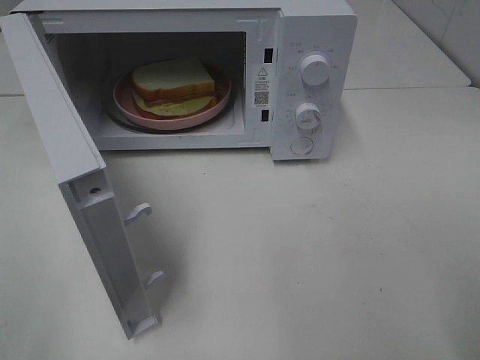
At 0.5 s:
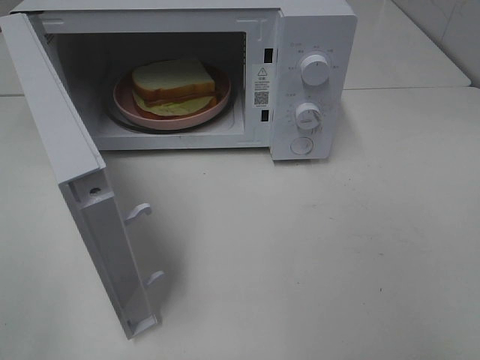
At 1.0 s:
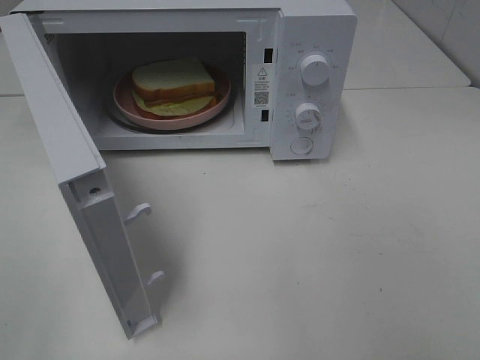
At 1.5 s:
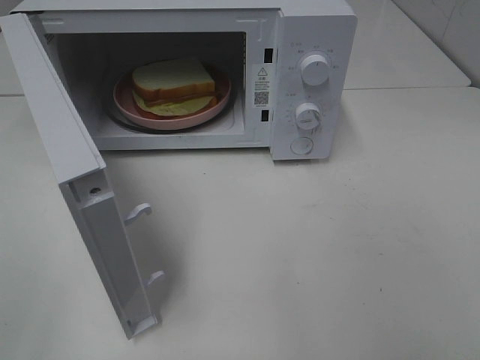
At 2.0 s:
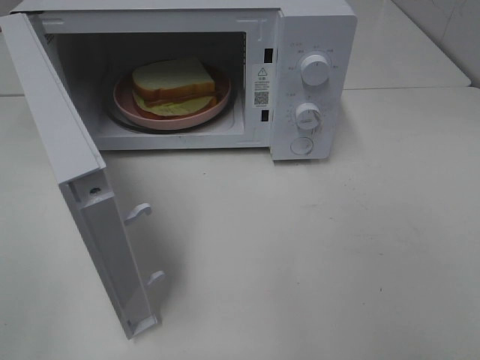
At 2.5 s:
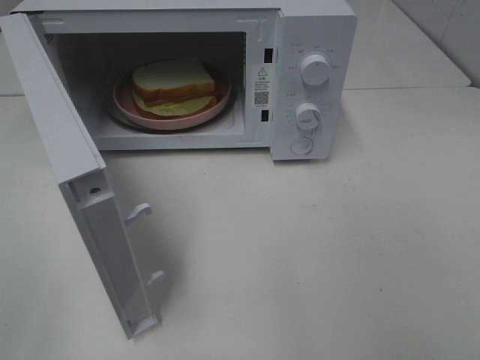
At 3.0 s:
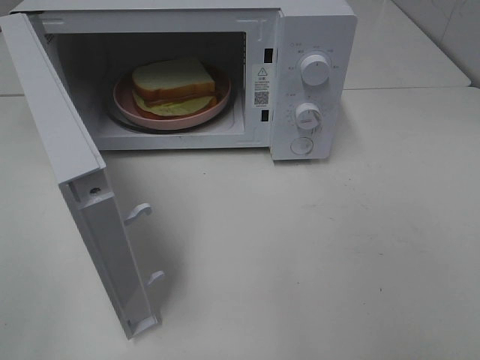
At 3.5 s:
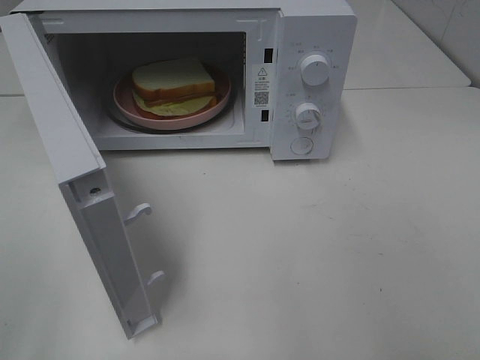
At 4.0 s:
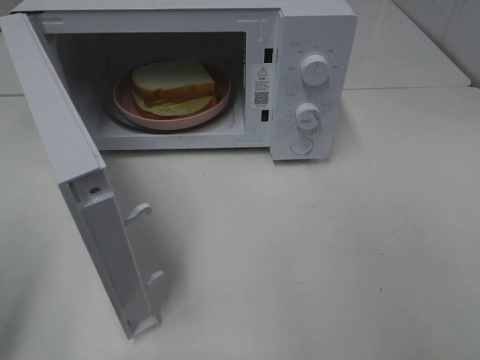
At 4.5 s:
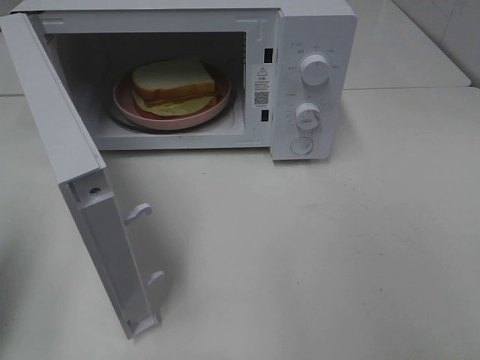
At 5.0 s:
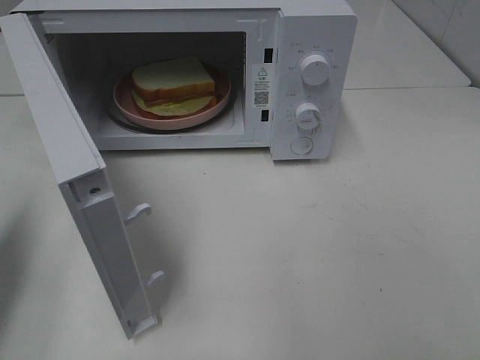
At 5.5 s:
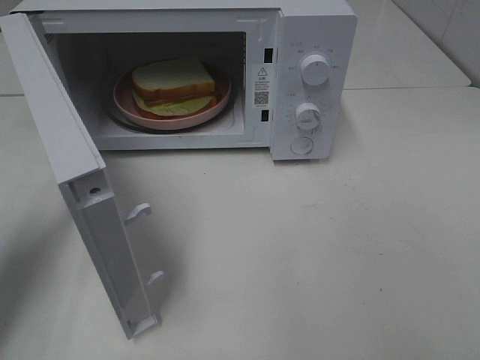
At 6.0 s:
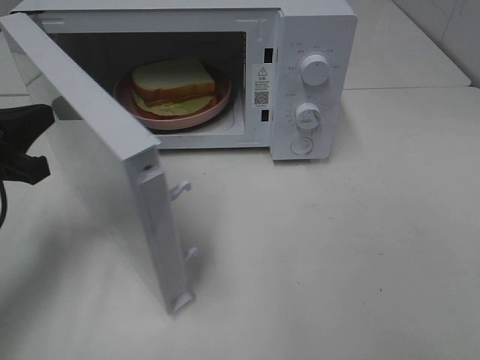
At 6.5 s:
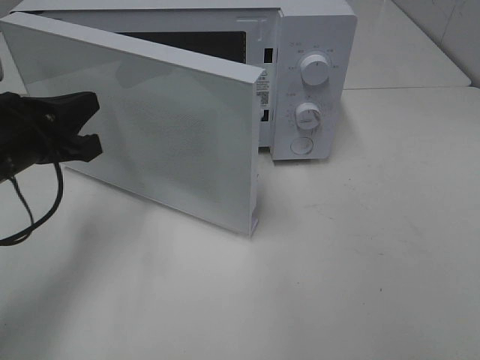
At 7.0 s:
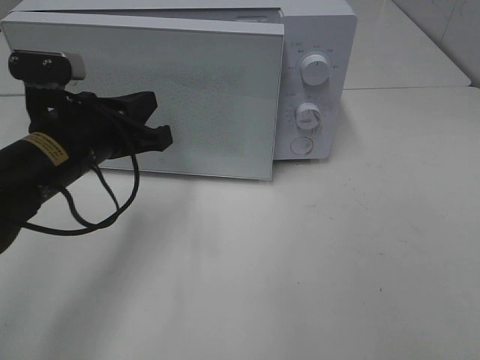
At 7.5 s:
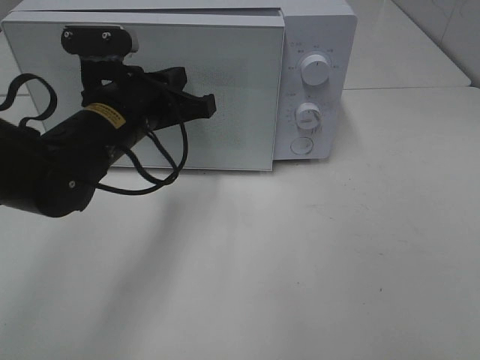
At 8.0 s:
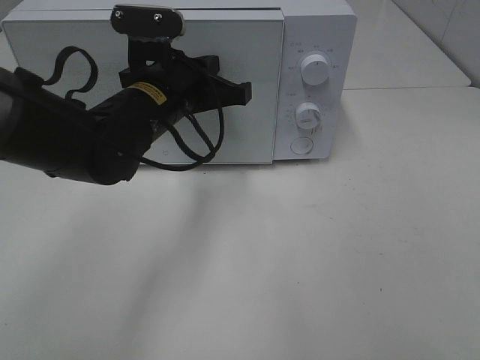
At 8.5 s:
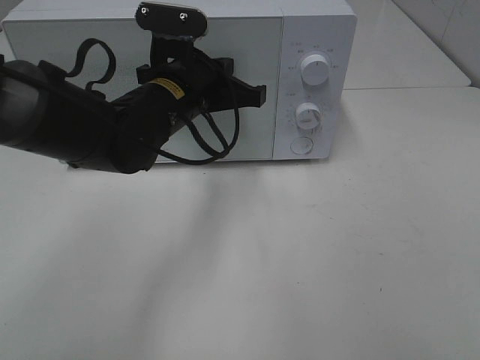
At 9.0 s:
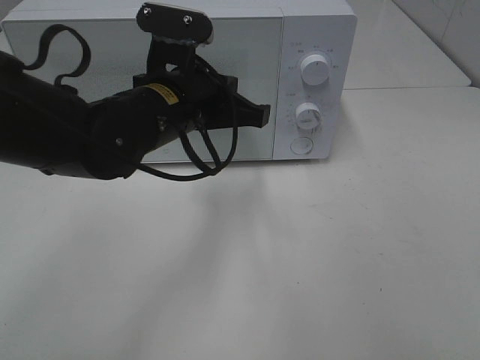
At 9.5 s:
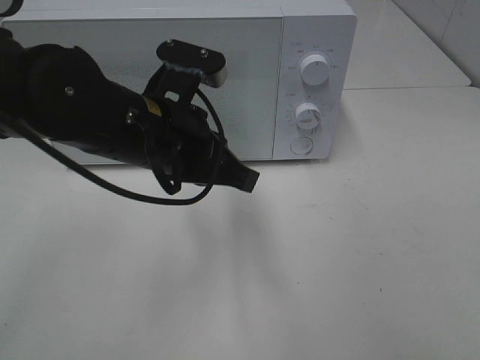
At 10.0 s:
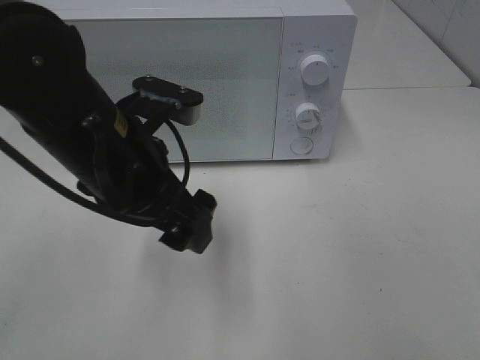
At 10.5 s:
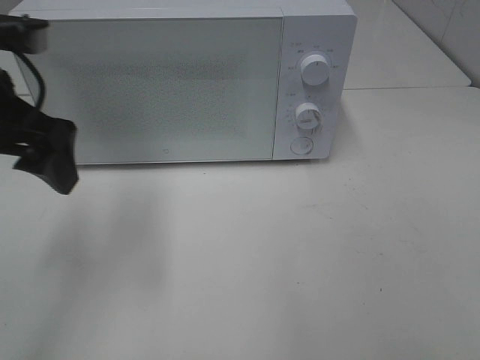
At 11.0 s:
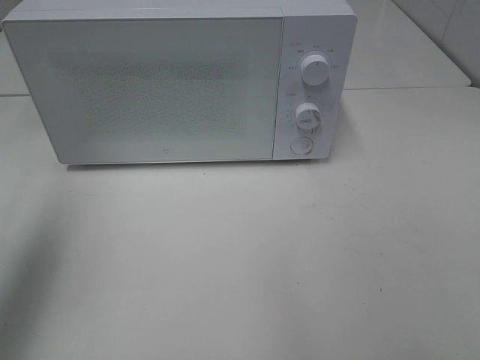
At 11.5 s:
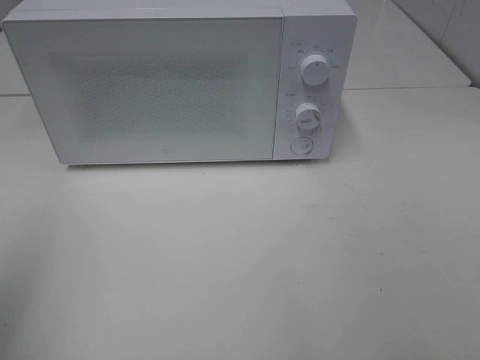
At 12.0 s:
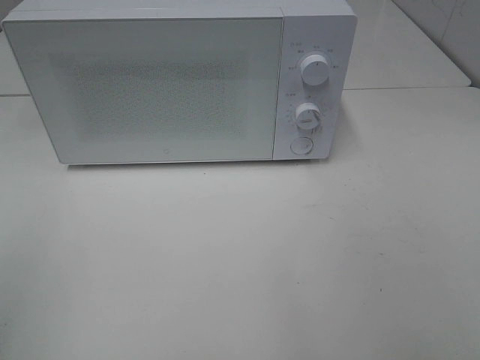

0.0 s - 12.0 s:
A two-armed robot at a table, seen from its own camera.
Task of the whole recording: Heat Sandwich.
Step, 0.0 s - 9.5 s: Left hand: close the microwave door.
4.0 s - 6.0 s: The left gripper is displaced forward and downward by approximately 20 cm.
6.0 s - 8.0 s: The left gripper is displaced to the right and forward by approximately 20 cm.
8.0 s - 10.0 s: The left gripper is displaced backward by some 10 cm, and opens up.
10.0 s - 12.0 s: The left gripper is displaced to the left, backward and upward by roughly 30 cm.

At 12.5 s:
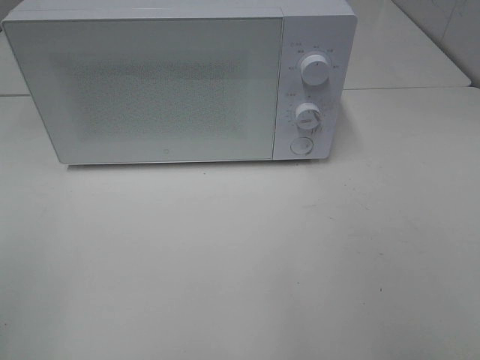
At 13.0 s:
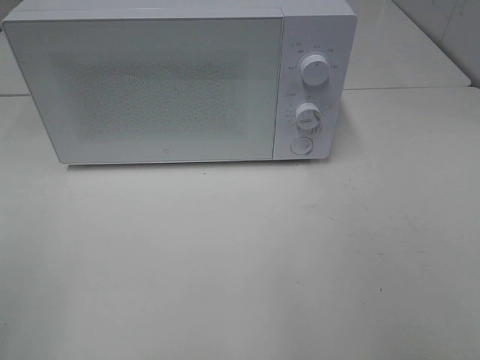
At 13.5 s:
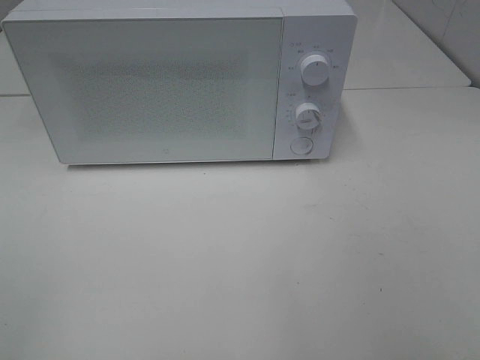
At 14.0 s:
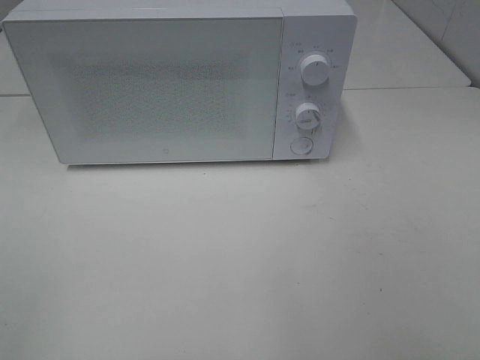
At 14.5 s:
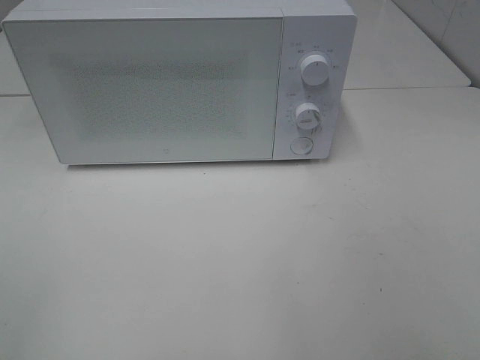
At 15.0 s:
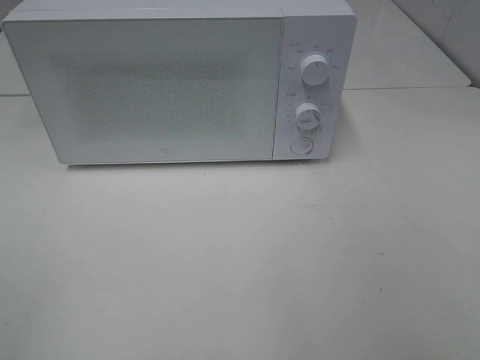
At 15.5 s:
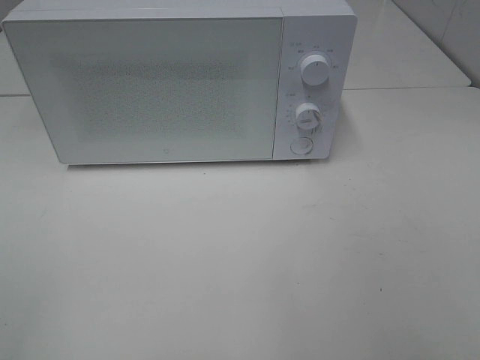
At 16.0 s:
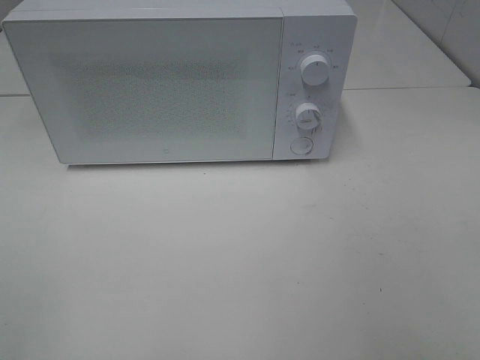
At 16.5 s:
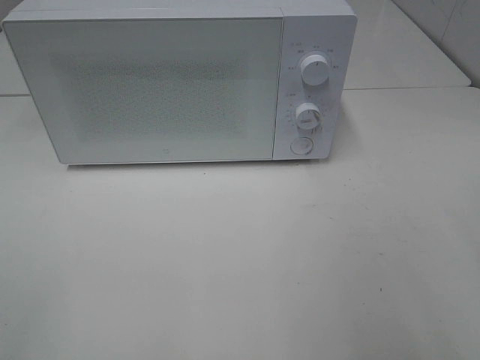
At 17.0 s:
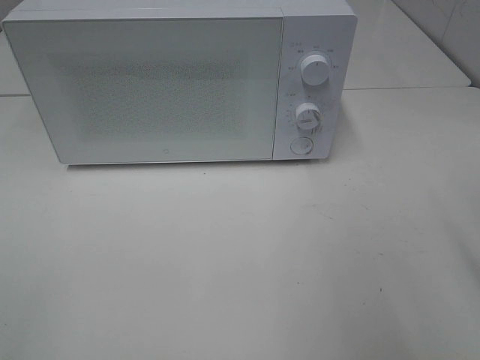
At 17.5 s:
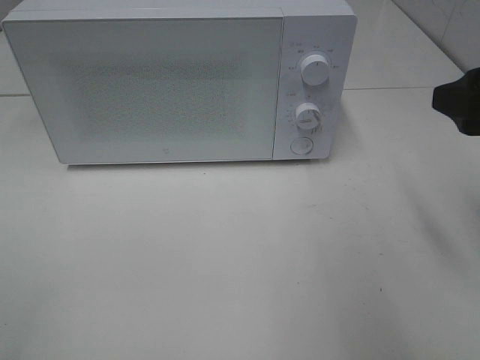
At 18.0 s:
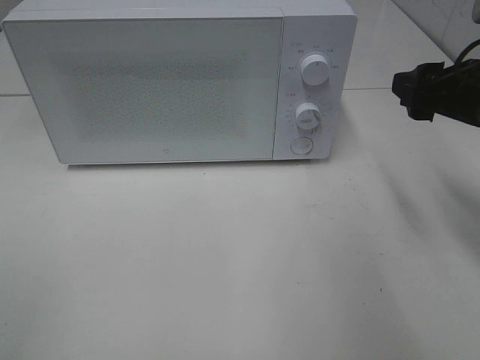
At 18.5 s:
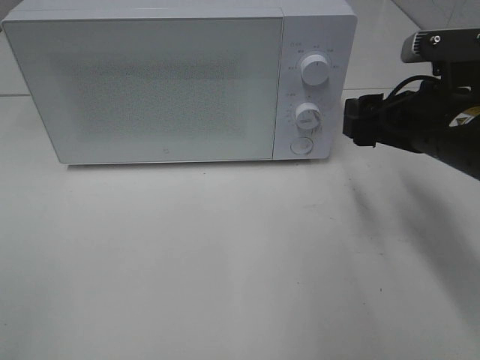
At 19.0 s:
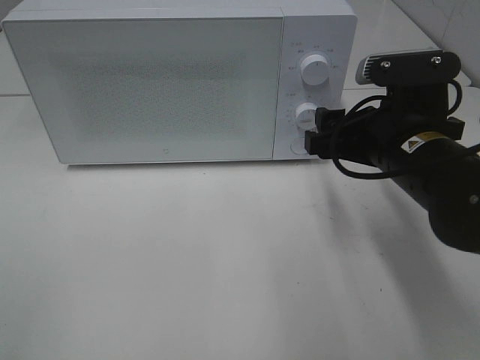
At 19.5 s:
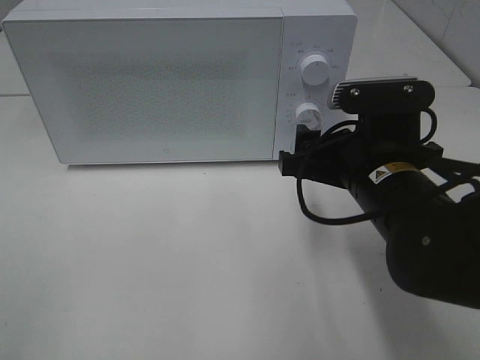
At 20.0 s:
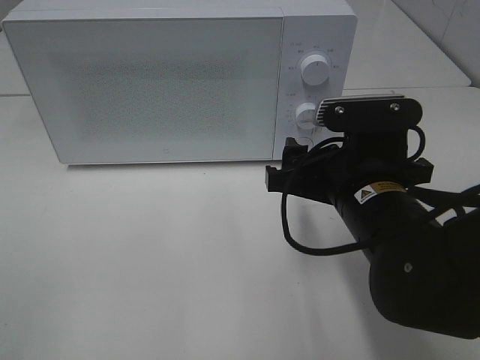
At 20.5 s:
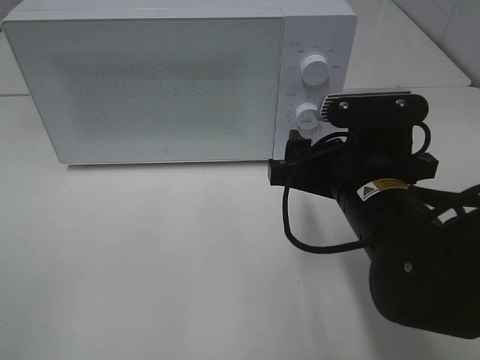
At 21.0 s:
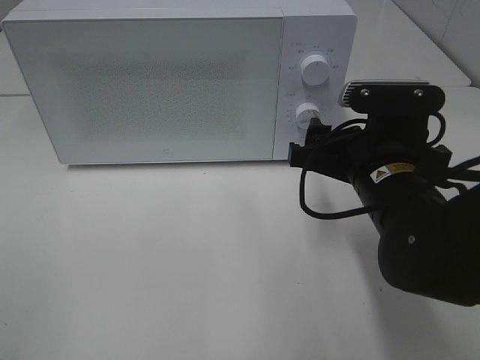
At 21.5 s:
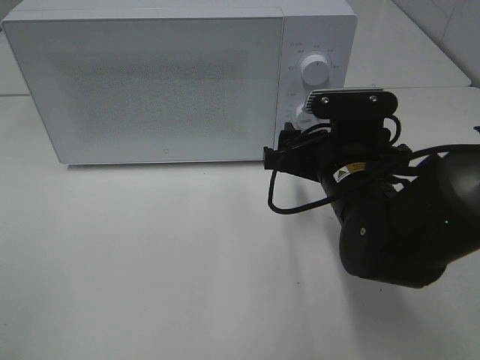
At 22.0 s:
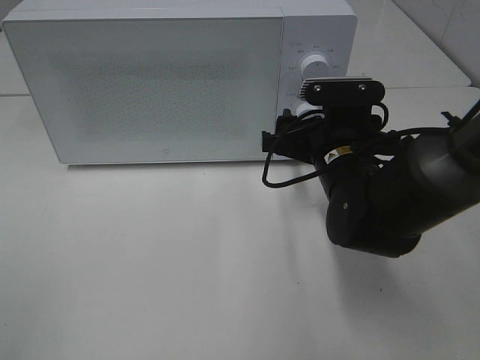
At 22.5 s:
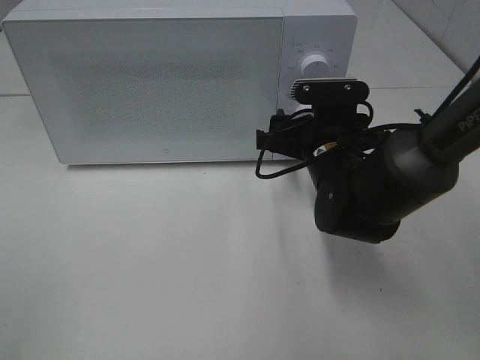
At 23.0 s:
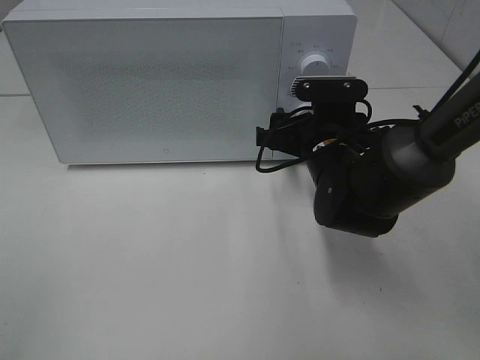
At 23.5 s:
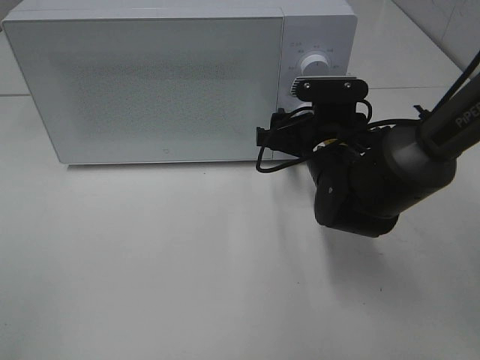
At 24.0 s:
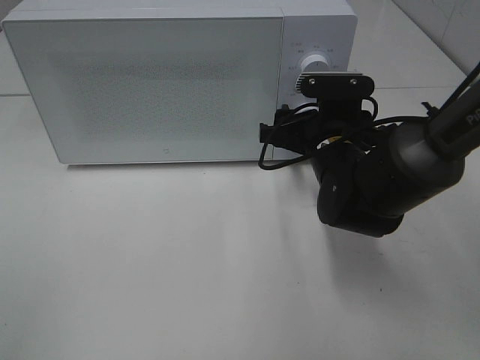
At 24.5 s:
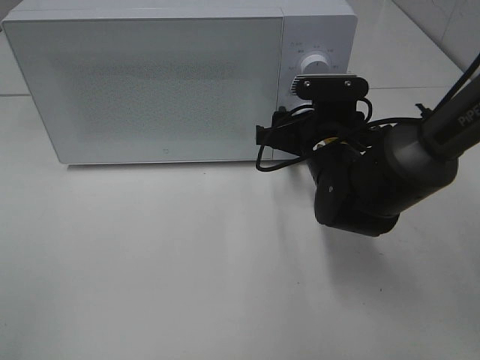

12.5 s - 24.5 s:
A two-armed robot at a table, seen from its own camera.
Task of the whole recording: Heat Sandwich.
16.5 s - 18.5 s: The right gripper heads forward, downward and to the left, covering approximately 20 cm.
18.5 s - 20.5 s: The right gripper heads to the left, covering some 10 cm.
20.5 s - 22.5 s: The right gripper goes approximately 10 cm forward.
22.5 s - 24.5 s: Both grippers stay about where they are.

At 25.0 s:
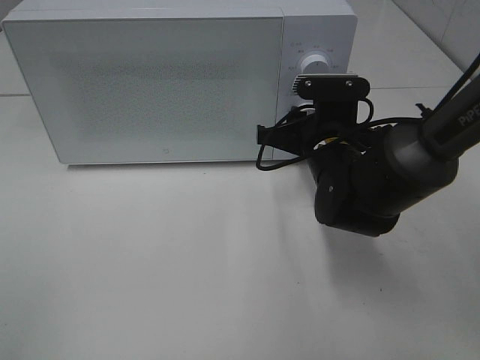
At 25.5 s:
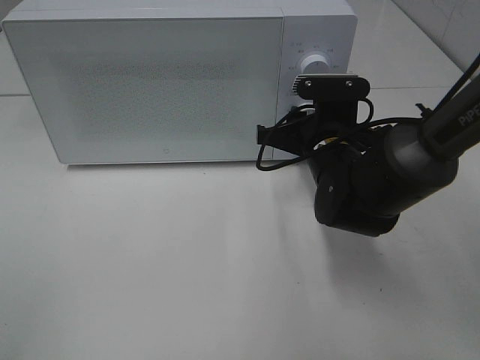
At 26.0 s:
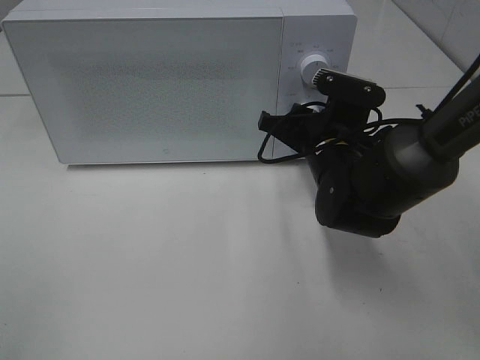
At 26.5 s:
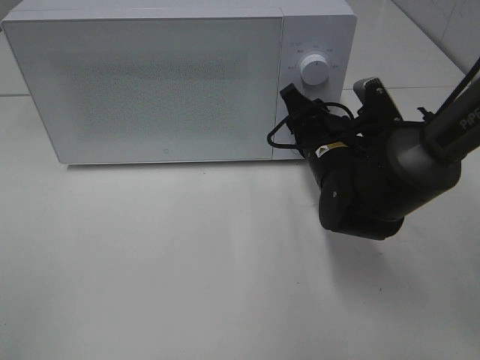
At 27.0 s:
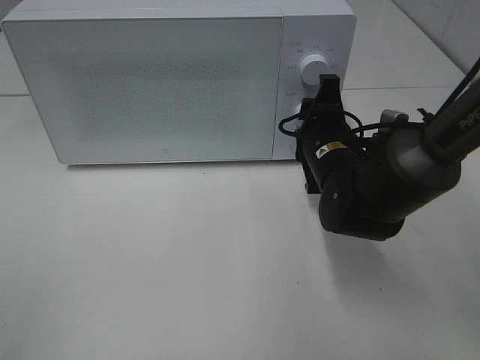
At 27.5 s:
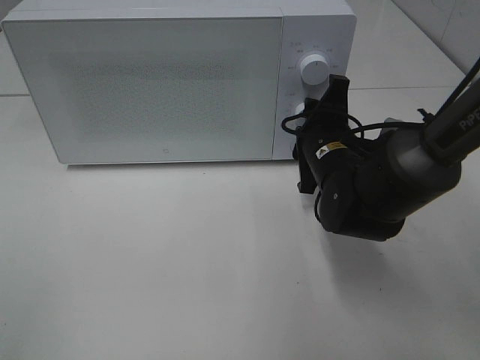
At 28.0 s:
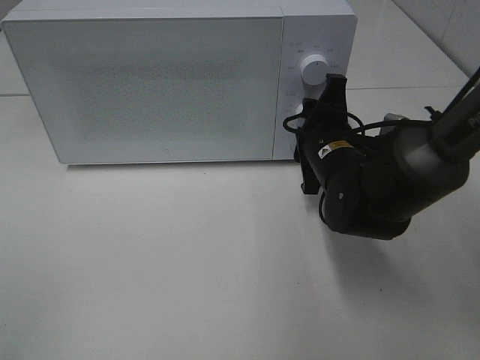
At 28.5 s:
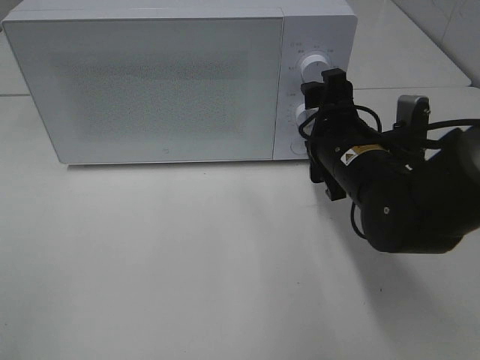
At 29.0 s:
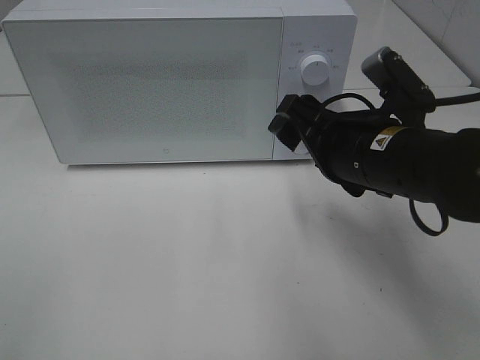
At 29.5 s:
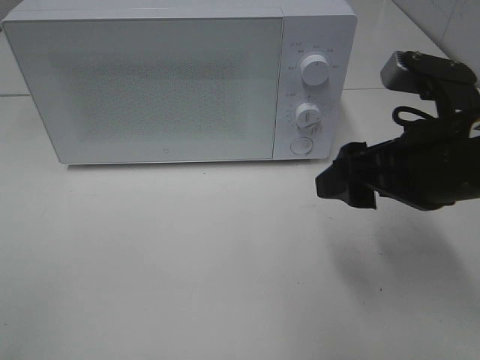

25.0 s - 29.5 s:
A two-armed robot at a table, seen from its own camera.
Task of the whole recording: Heat Sandwich.
Step, 25.0 s - 29.0 s: Right hand: twist timer button.
27.0 s - 29.5 s: The right gripper moves backward, upward and to the right, some 20 cm, and opens up.
